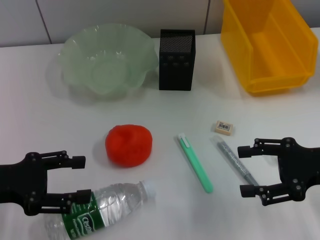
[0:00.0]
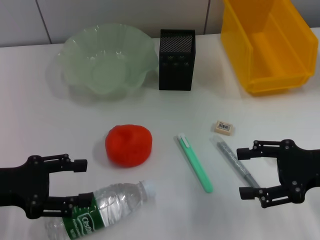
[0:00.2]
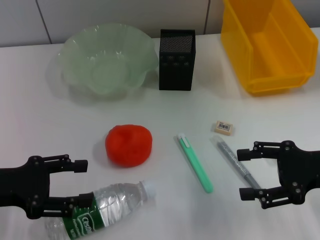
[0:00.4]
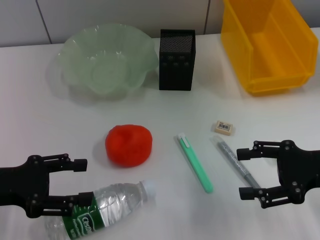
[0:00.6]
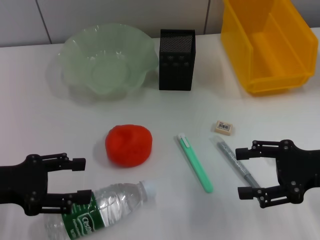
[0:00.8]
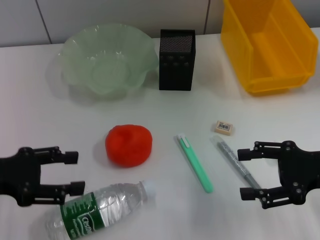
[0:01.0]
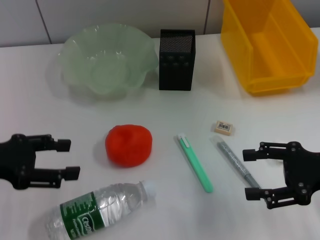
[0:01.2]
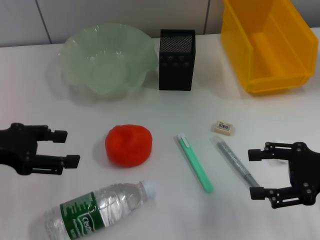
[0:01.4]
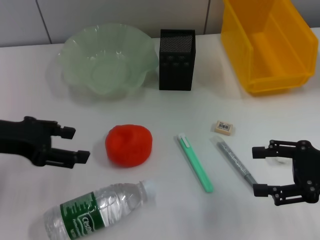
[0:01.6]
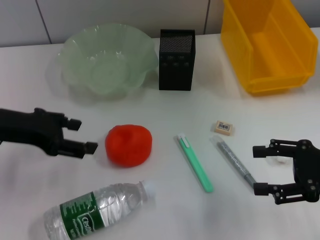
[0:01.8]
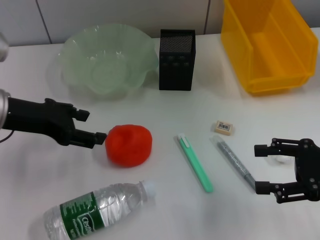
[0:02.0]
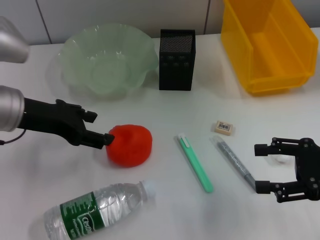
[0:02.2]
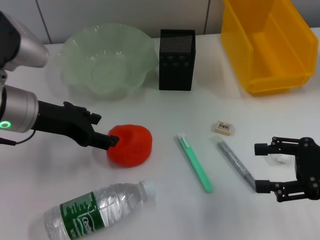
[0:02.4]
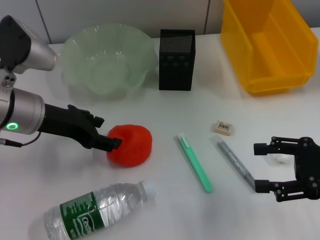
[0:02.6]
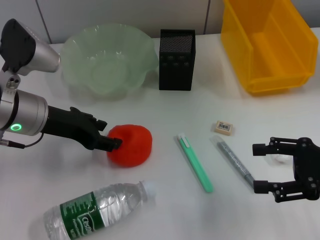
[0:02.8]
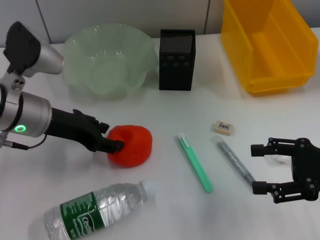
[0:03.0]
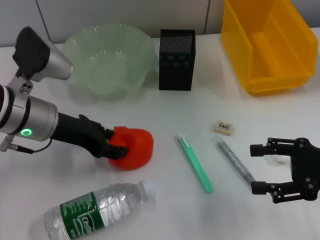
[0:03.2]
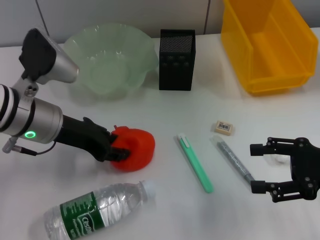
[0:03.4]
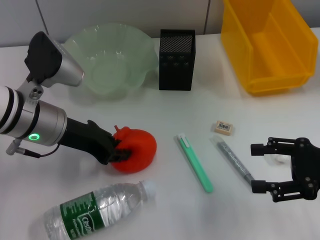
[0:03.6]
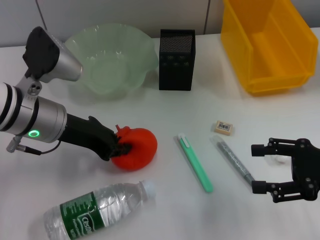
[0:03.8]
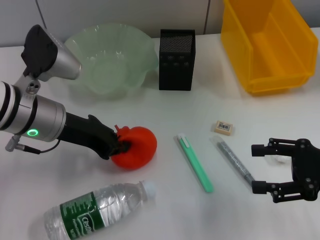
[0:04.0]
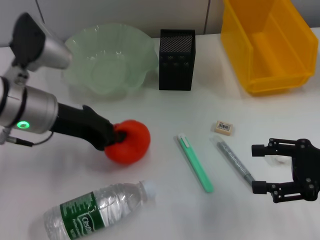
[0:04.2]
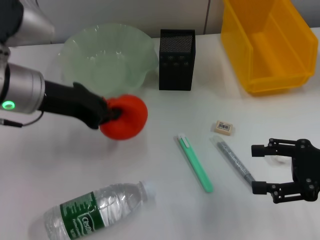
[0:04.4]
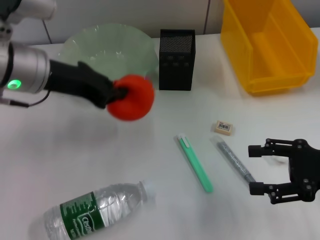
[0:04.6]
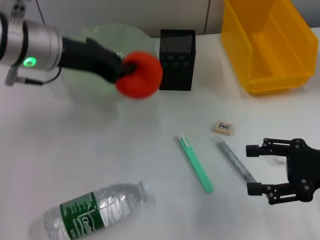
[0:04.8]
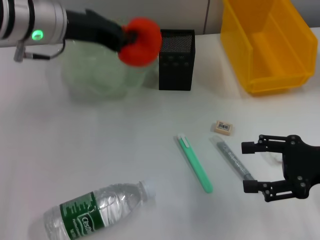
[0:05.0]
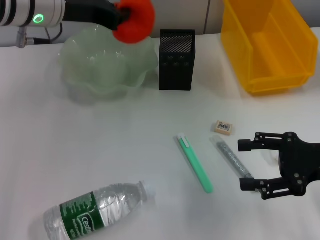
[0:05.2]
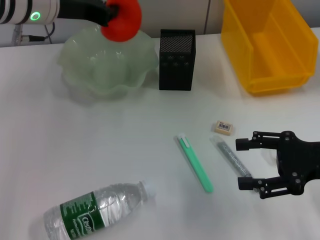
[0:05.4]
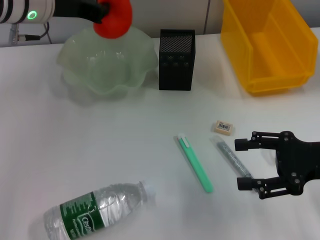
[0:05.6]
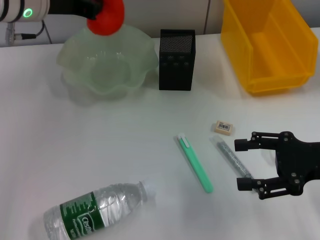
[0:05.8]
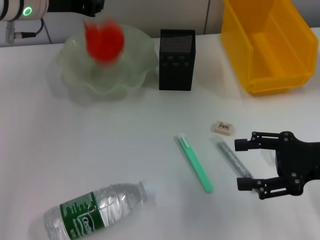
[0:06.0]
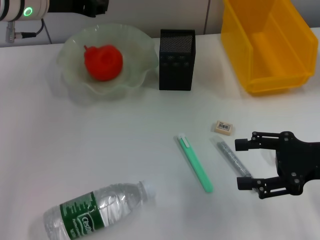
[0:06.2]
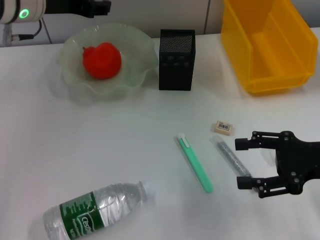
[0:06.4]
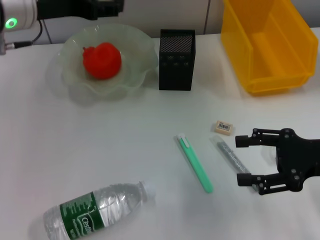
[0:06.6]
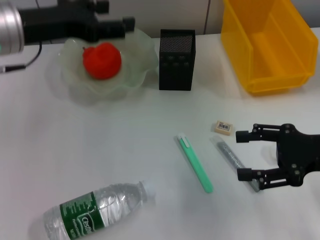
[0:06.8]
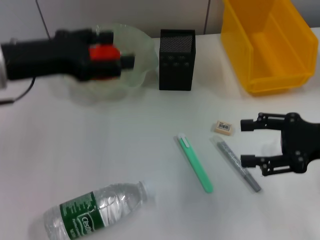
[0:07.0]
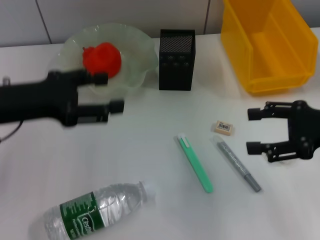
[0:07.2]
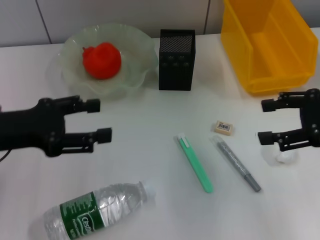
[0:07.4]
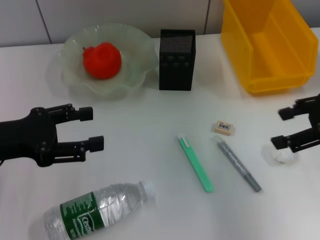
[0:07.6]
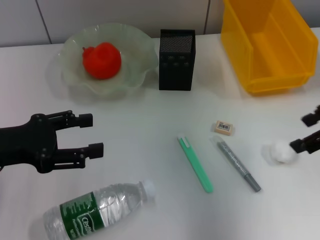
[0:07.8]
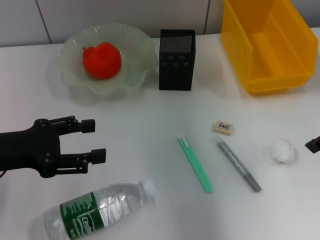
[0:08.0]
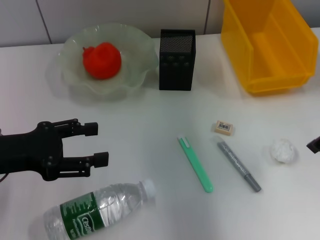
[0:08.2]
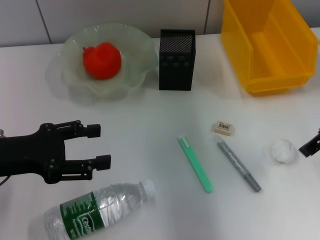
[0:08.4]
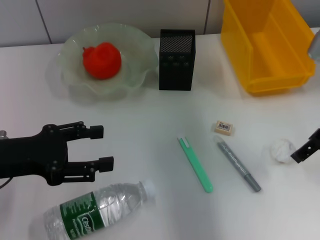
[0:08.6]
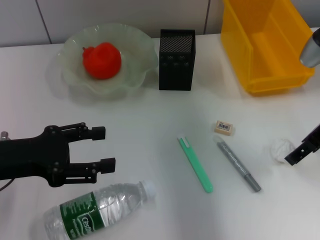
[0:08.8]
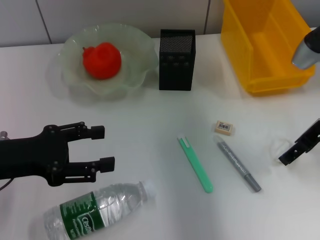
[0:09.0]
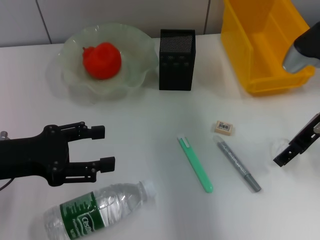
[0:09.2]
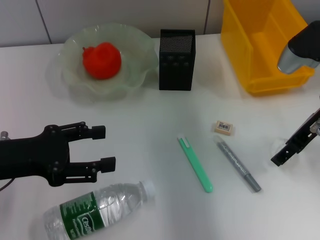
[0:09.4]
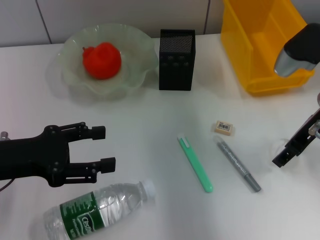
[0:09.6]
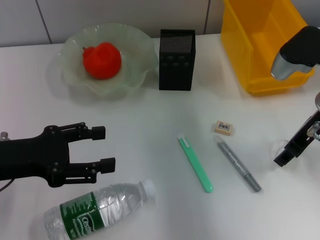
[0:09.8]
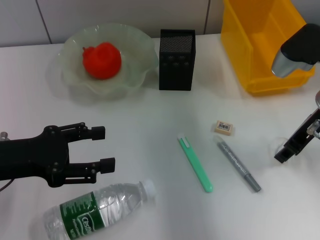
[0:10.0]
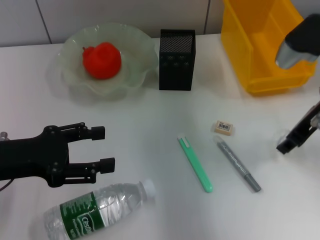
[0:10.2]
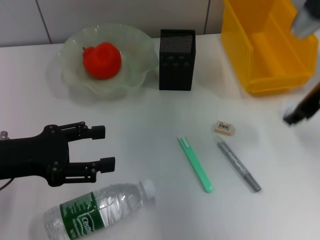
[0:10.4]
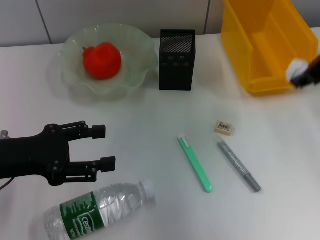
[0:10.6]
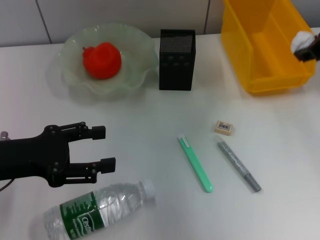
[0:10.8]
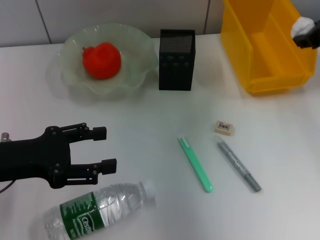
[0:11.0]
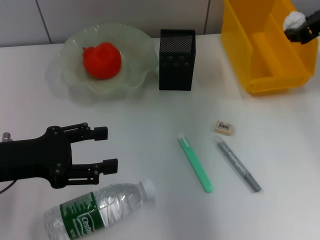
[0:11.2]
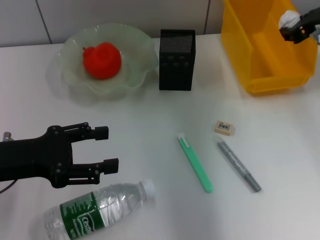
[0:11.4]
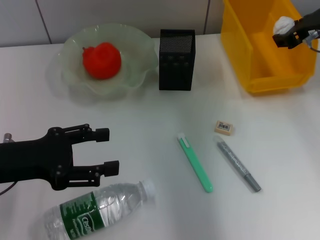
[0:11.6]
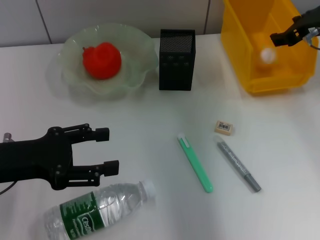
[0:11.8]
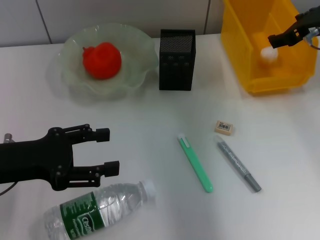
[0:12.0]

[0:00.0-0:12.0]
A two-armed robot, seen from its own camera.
Step, 0:00.0 to 0:03.8: Grab the orange with the left hand.
Step, 0:04.2 to 0:06.2: Place the orange into the fruit bowl with the left hand.
Step, 0:06.4 to 0:09.8: Grab the paper ball with the right hand.
0:00.0 to 0:01.6: The left gripper travels upward by approximately 5 cm.
0:01.6 to 0:03.0: The left gripper moves to the right, approximately 10 cm.
0:03.0 to 0:04.4: The left gripper moves upward, some 5 cm, and closes.
0:04.4 to 0:06.0: The left gripper shifts about 10 cm forward.
0:06.0 to 0:07.6: The left gripper is displaced backward, to the left and downward by some 20 cm, and opens up; the right gripper moves upward, some 10 cm.
0:07.6 to 0:09.0: The right gripper heads forward, covering about 5 cm.
0:09.0 to 0:10.4: The right gripper shifts roughly 5 cm upward, and closes up.
0:10.4 to 0:12.0: The right gripper shifts roughly 5 cm forward, and opens its fingers.

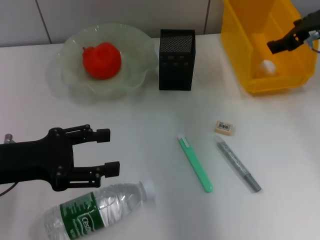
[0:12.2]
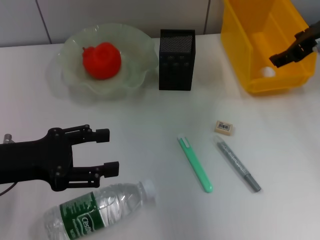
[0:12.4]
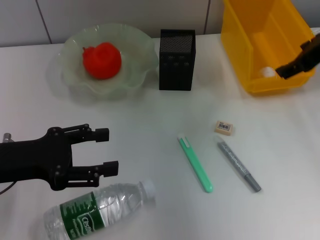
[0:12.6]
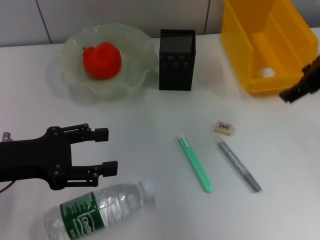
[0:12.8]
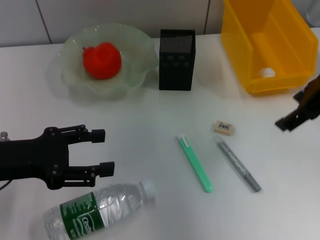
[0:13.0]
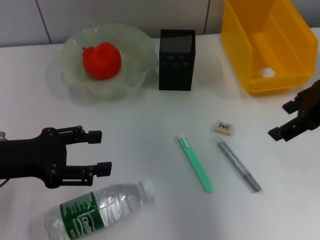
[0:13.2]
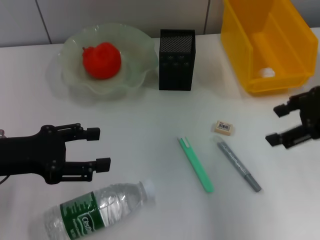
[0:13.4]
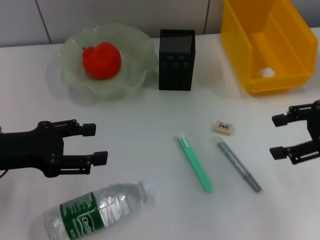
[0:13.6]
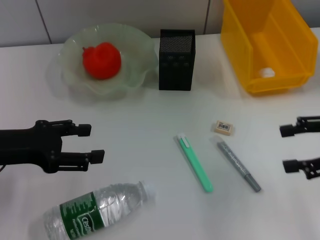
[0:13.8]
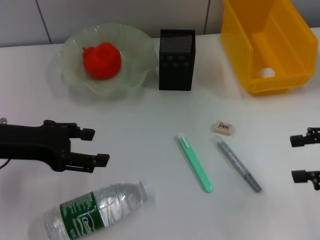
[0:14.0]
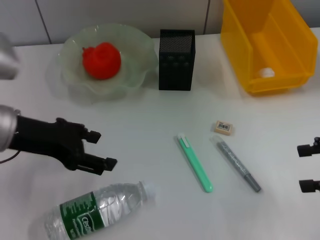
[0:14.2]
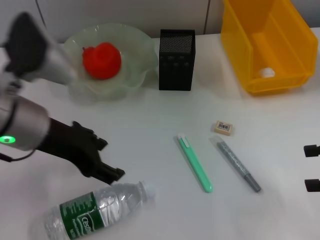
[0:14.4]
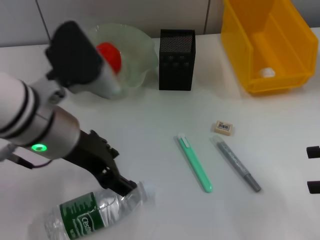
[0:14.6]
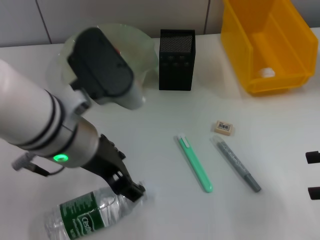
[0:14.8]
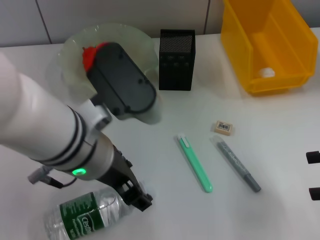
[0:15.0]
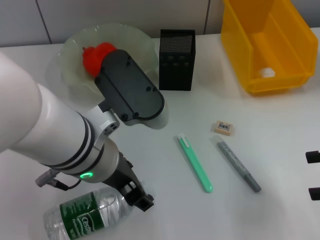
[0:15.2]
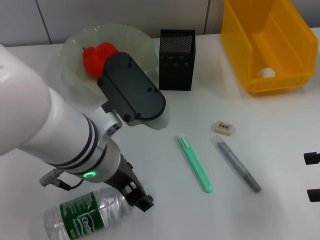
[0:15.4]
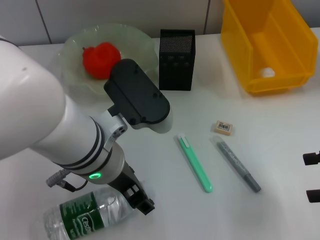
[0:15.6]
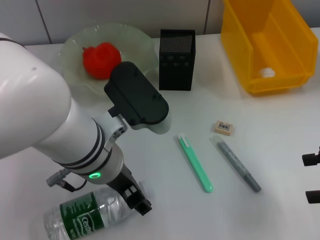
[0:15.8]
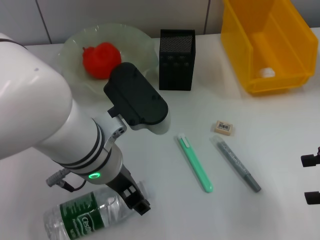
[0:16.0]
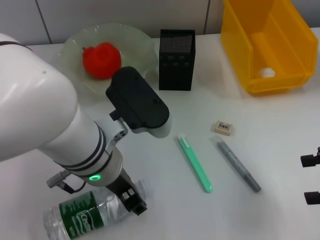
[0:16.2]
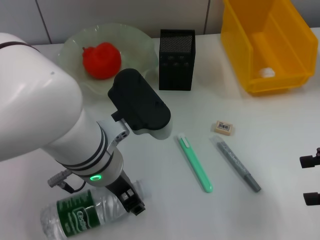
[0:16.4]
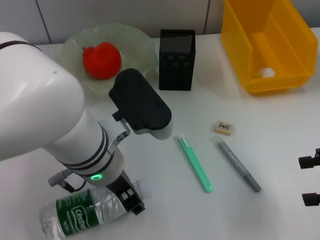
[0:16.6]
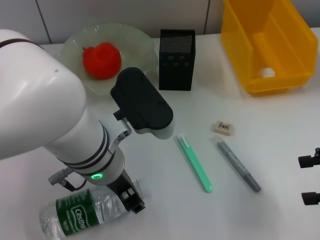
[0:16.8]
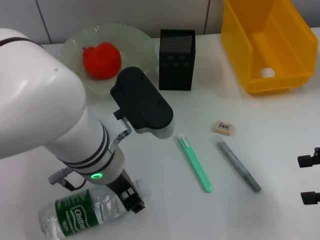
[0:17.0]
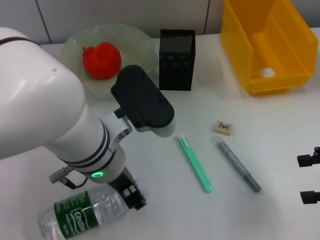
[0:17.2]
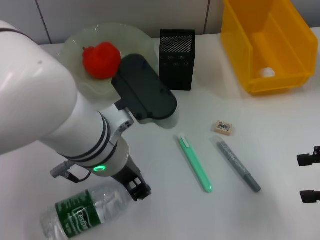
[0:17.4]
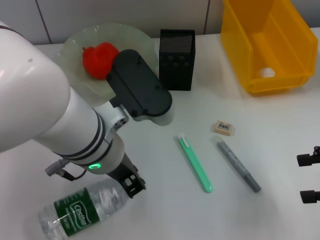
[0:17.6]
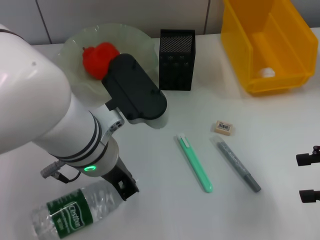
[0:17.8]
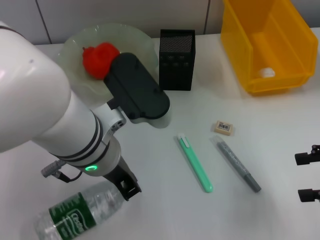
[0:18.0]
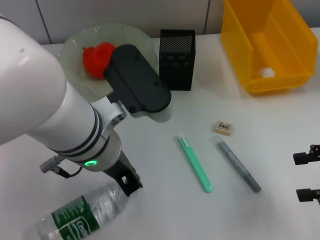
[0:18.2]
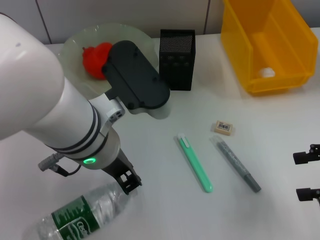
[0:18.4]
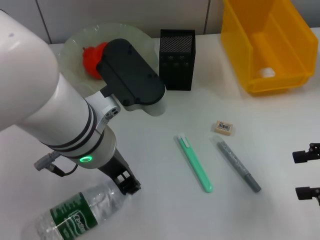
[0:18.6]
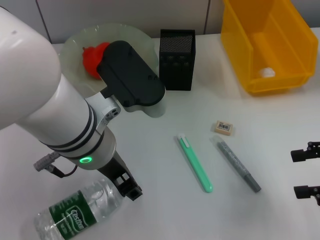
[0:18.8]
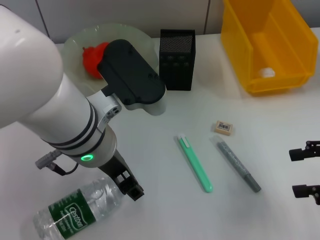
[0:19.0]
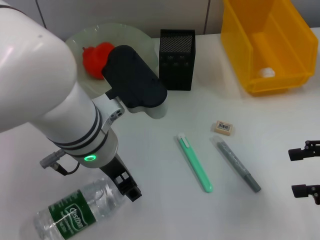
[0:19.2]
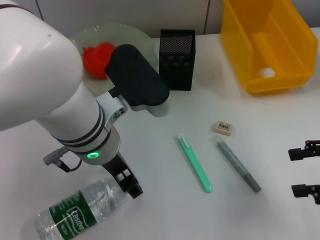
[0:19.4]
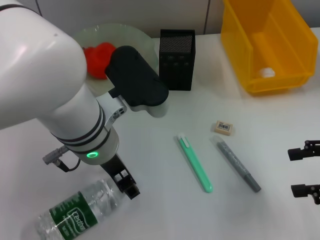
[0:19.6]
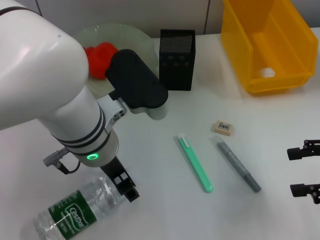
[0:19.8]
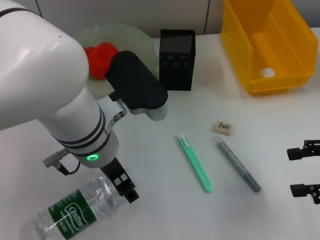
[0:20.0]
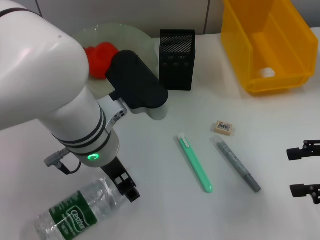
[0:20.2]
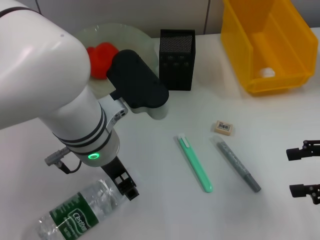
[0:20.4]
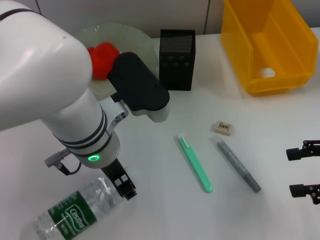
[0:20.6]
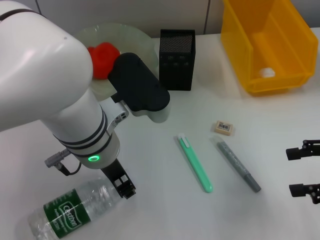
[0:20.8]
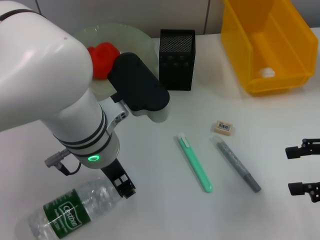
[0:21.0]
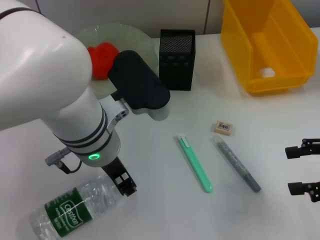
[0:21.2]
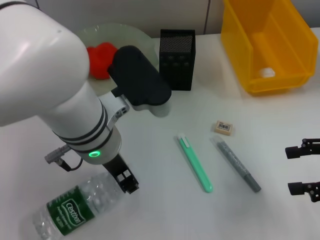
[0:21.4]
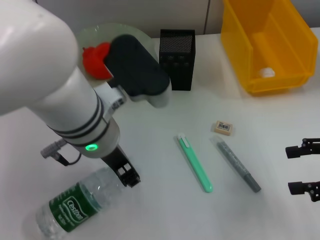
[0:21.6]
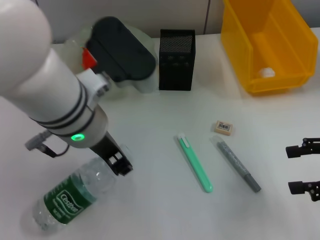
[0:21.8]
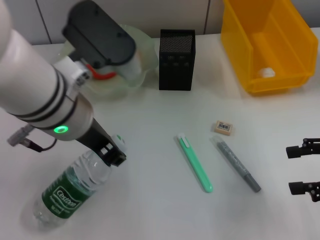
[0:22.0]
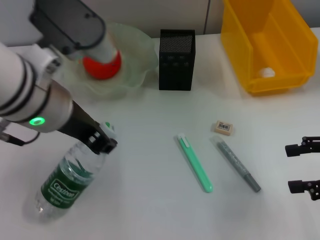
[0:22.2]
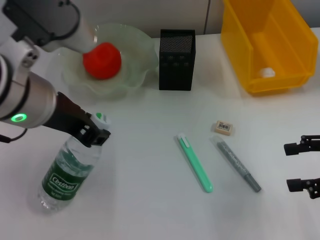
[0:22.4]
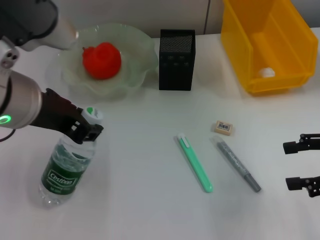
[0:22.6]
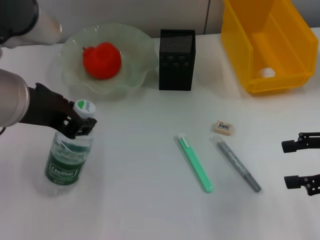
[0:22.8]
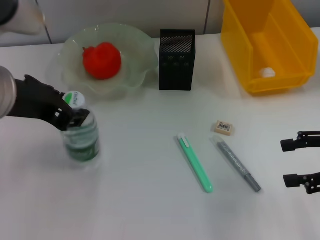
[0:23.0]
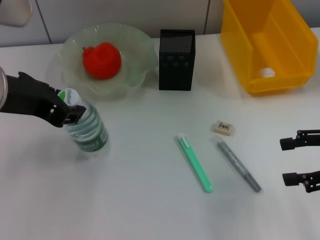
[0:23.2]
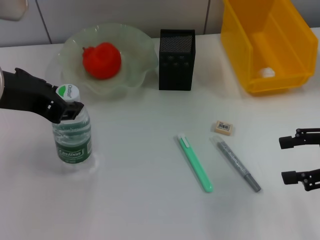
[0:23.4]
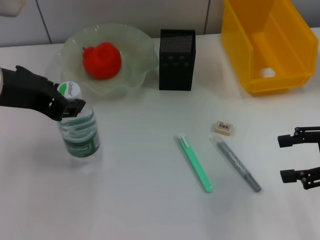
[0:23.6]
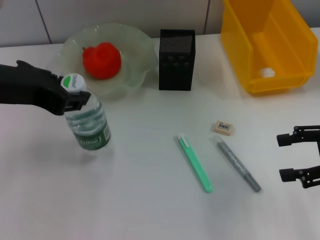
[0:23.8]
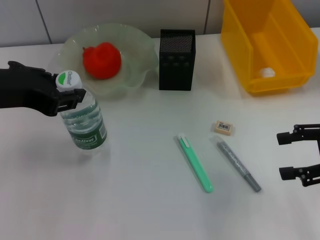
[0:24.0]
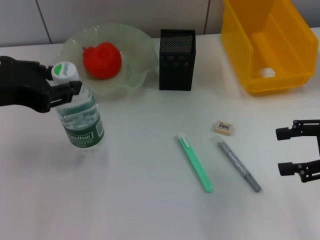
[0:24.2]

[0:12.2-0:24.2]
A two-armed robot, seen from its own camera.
Step, 0:12.6 to 0:20.8: Grab the water bottle with the left hand.
0:12.2 to 0:13.8: The right gripper travels backward, to the right and downward by roughly 15 cm.
0:13.8 to 0:15.2: The left gripper heads to the right, covering approximately 20 cm.
0:15.2 to 0:16.6: The grippers move only a little.
0:16.6 to 0:18.2: The left gripper closes its fingers.
0:18.2 to 0:19.8: The left gripper opens.
0:19.8 to 0:21.2: The left gripper closes up.
0:21.2 to 0:22.6: The left gripper moves upward and to the left, roughly 10 cm.
0:22.6 to 0:24.2: The left gripper heads to the left, covering approximately 10 cm.
